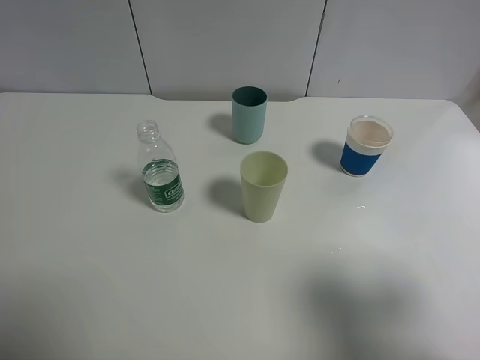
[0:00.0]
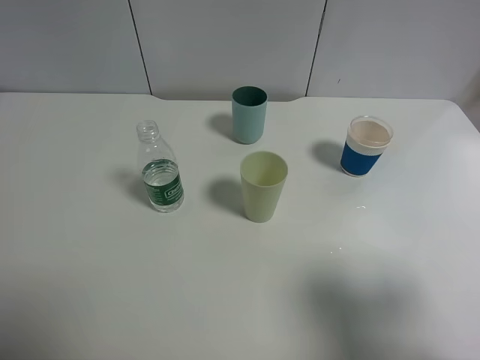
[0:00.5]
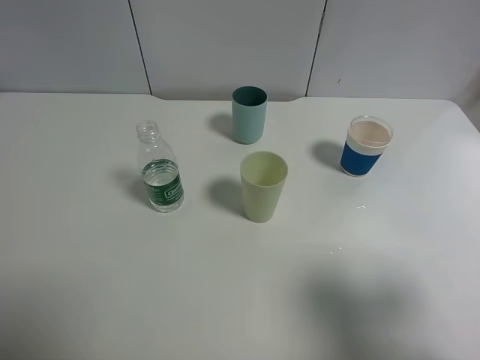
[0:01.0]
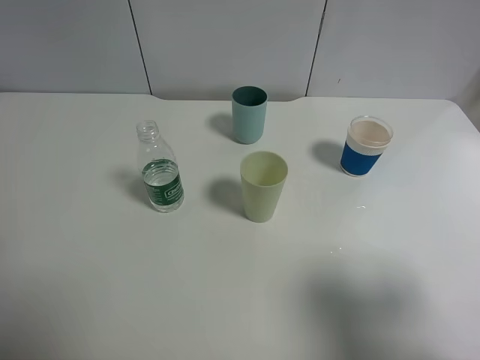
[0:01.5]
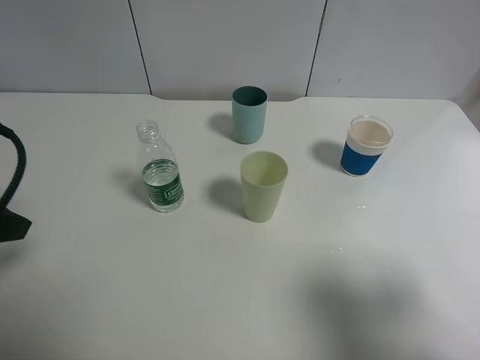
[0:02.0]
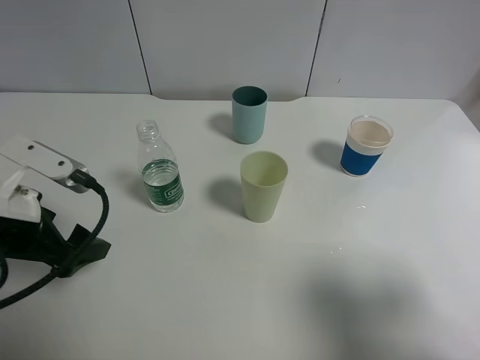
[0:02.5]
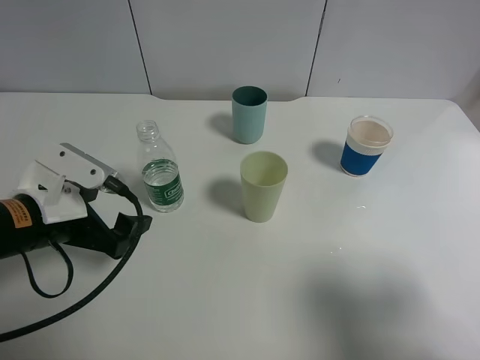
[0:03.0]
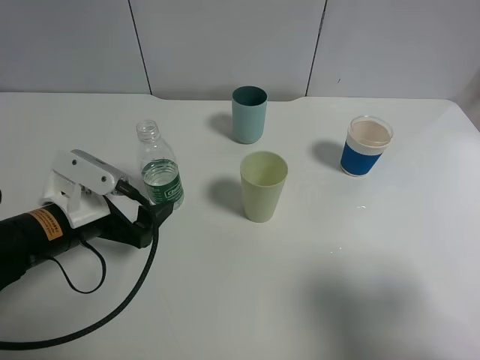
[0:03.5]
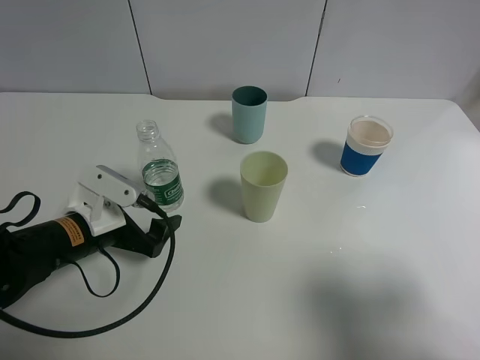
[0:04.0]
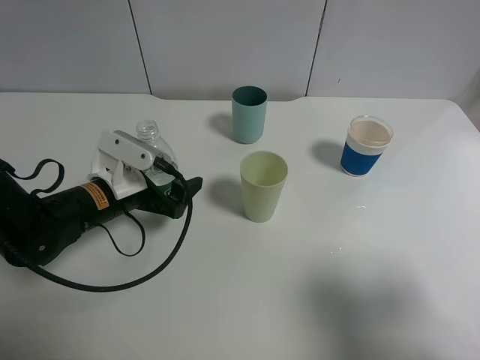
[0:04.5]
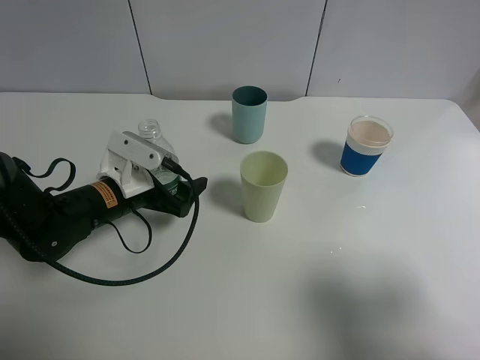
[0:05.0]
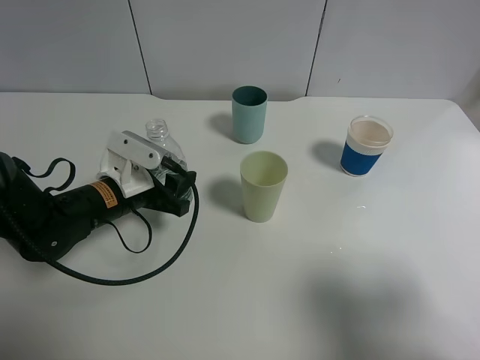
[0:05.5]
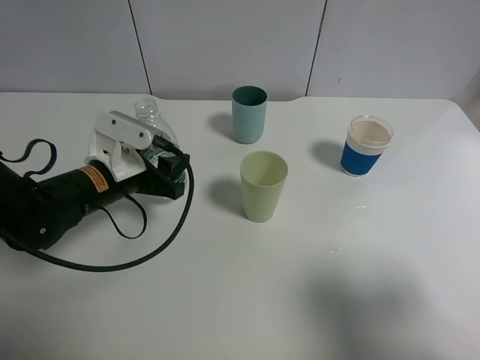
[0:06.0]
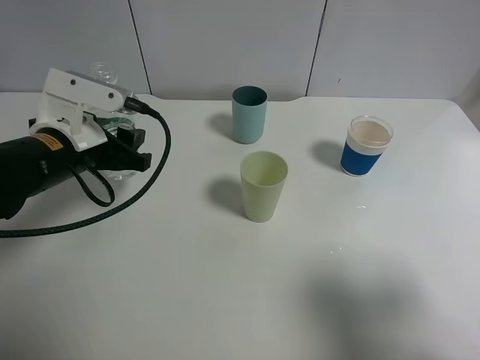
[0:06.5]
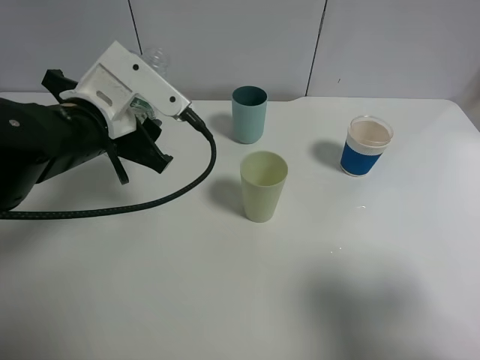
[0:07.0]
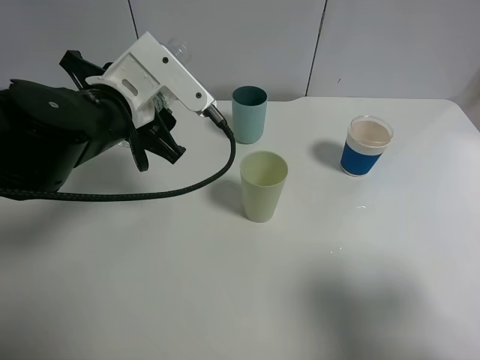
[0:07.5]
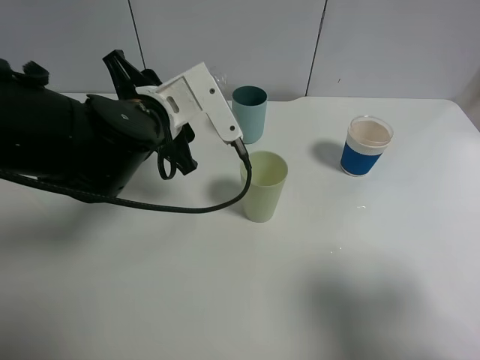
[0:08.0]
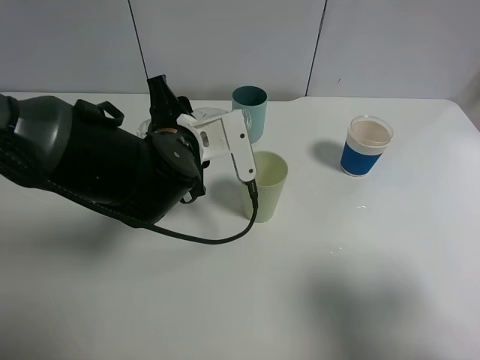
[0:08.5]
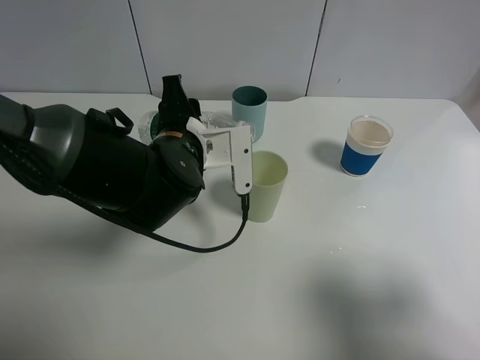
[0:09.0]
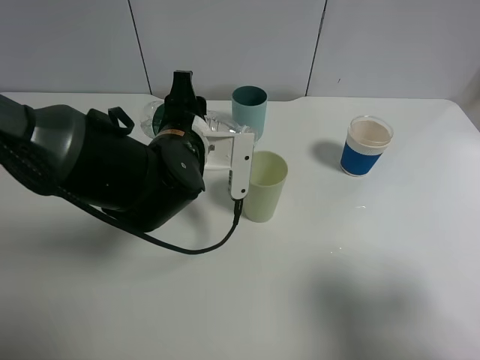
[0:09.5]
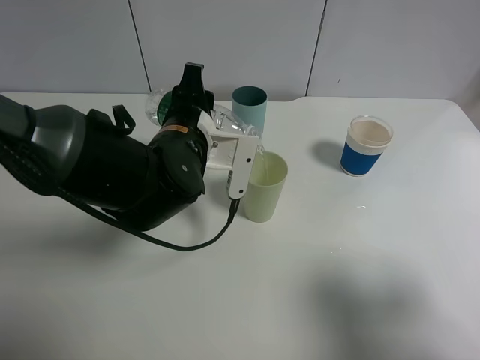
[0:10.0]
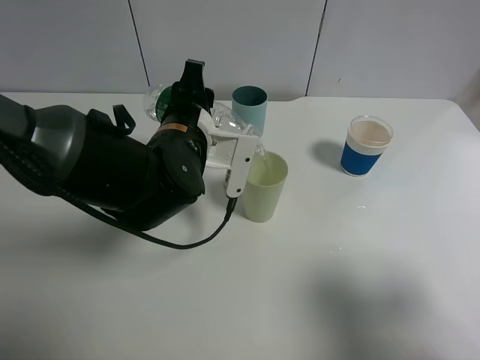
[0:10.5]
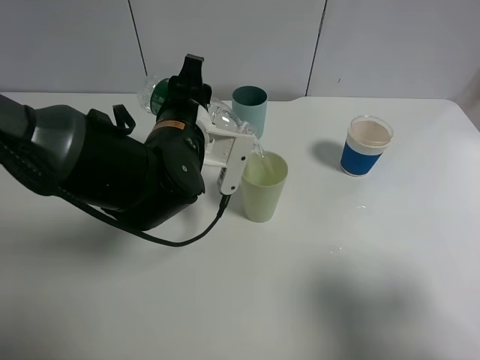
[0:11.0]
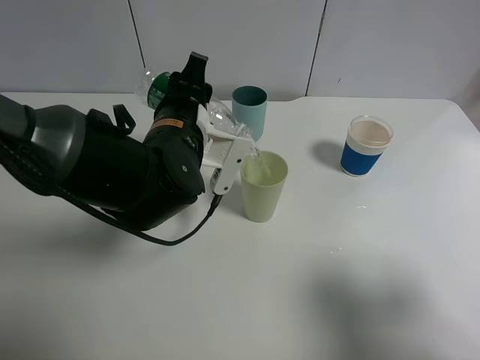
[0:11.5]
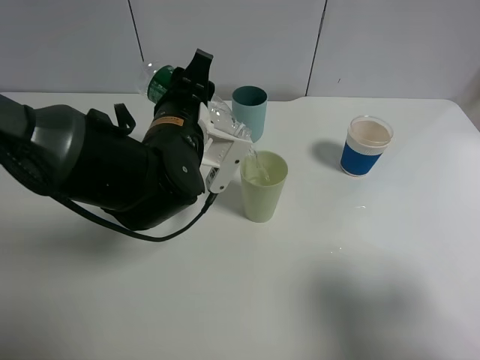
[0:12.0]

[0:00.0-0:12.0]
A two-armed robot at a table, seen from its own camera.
Task of the whole recording: use a clamp to hold the bottle of the drink, pour the beverage into a random cup, then clamp the cup containing the drink and pour the drink into another random cup.
Step, 0:00.0 to 0:06.0: Pick up the water bottle with left gripper.
0:00.0 to 0:02.0: The left gripper is displaced forward by some 15 cm.
0:02.0 to 0:04.0: The left gripper is displaced downward and to the right by some 20 cm.
0:04.0 to 0:06.0: The left gripper moves forward, approximately 5 cm, and closes.
0:06.0 to 0:08.0: The left gripper moves upward and to the right, approximately 10 cm.
0:08.0 to 0:10.0: The left gripper changes place by some 5 cm.
0:10.0 to 0:12.0: There are only small adjustments of the grippers.

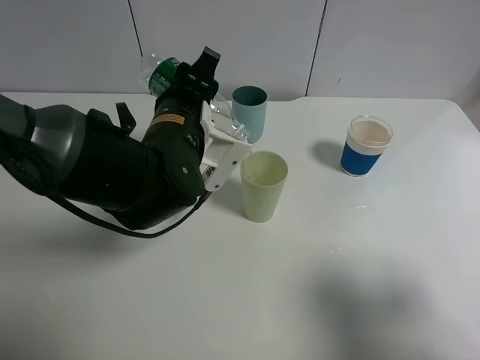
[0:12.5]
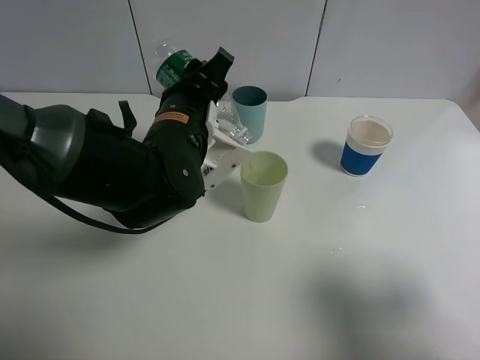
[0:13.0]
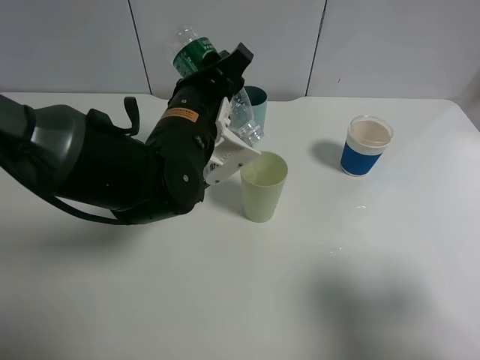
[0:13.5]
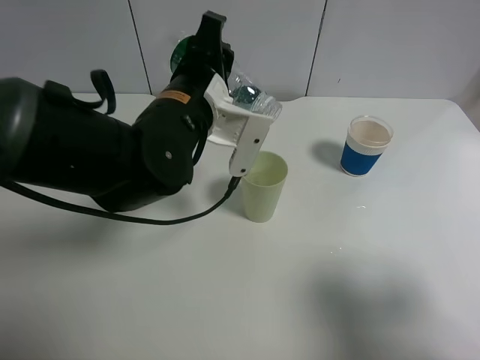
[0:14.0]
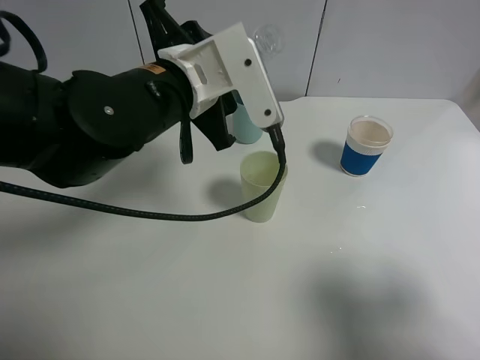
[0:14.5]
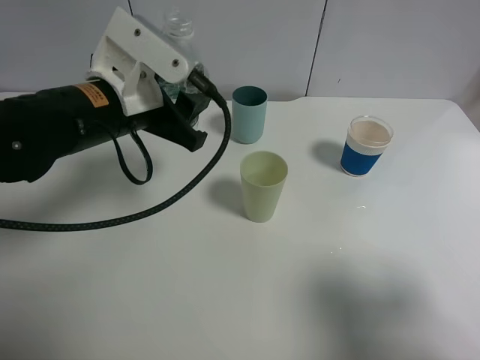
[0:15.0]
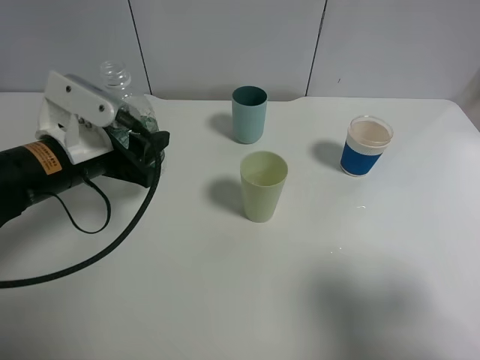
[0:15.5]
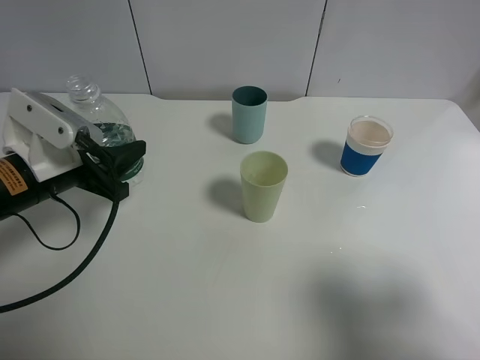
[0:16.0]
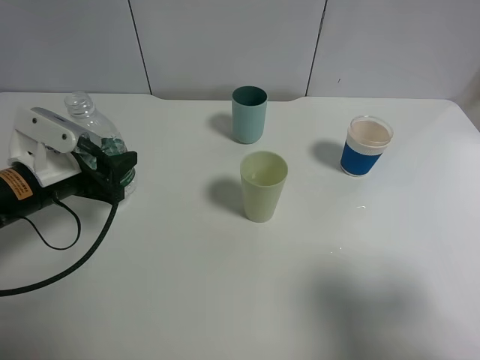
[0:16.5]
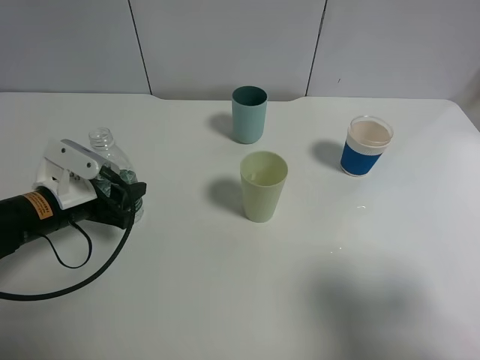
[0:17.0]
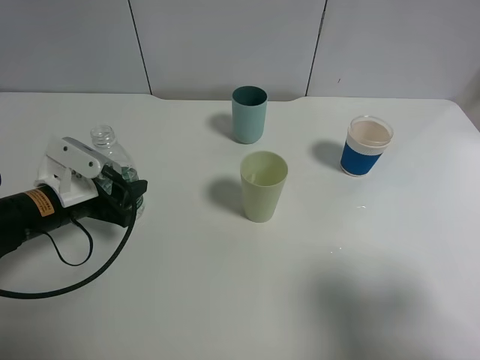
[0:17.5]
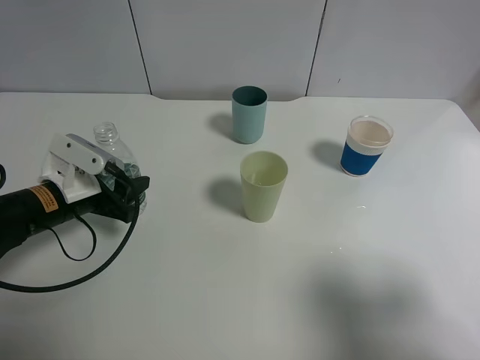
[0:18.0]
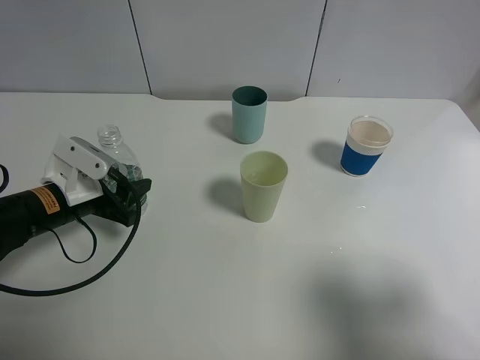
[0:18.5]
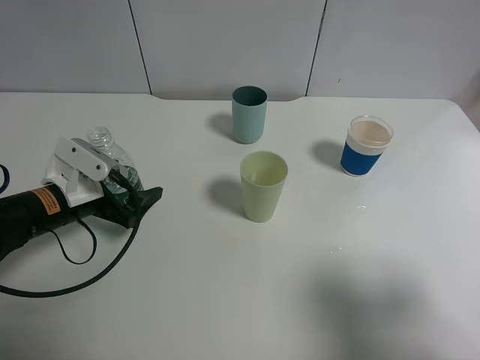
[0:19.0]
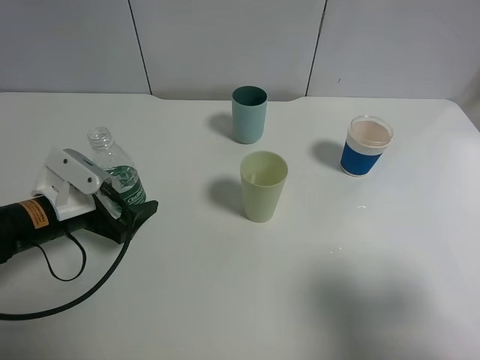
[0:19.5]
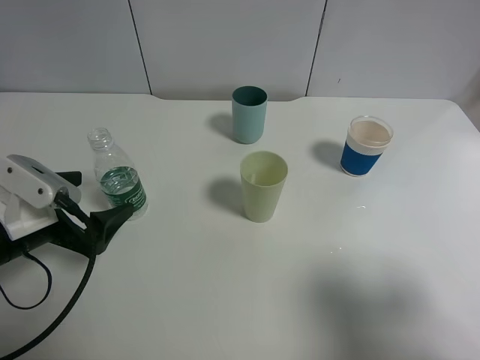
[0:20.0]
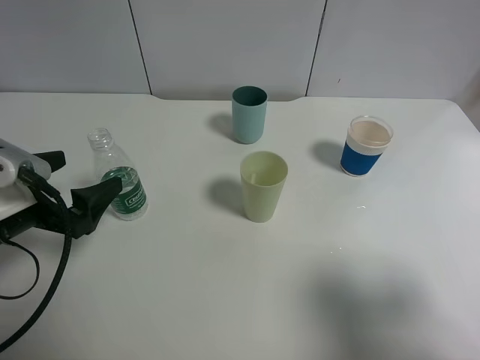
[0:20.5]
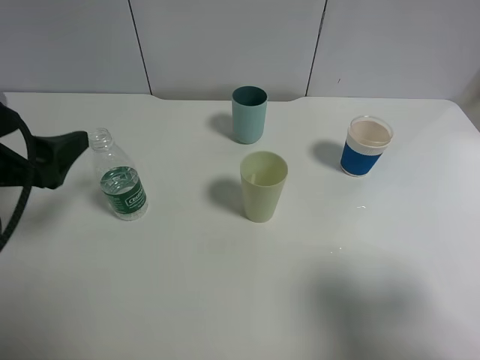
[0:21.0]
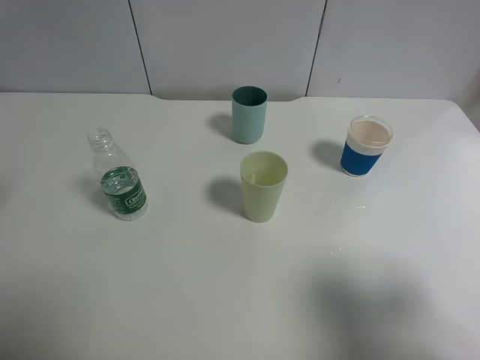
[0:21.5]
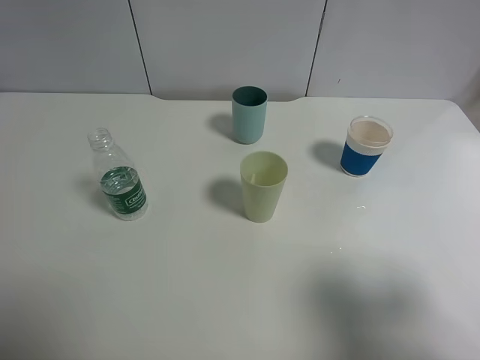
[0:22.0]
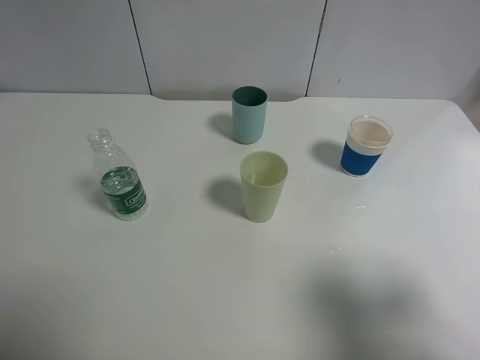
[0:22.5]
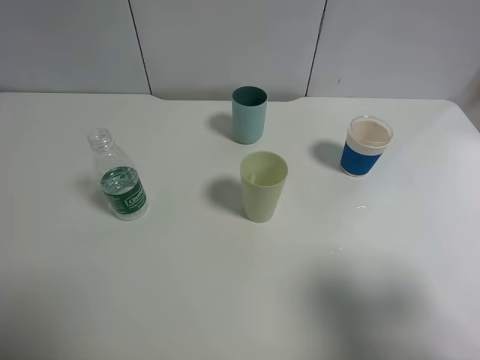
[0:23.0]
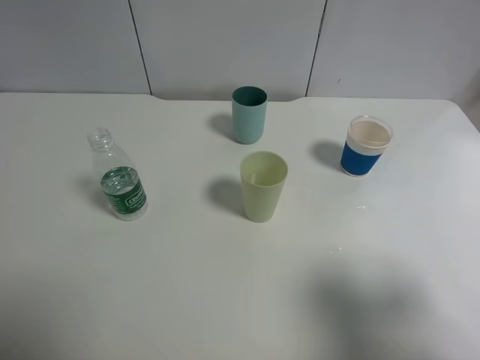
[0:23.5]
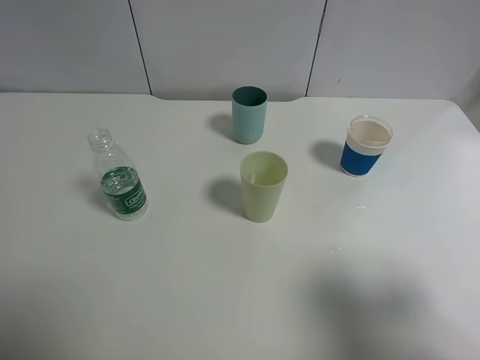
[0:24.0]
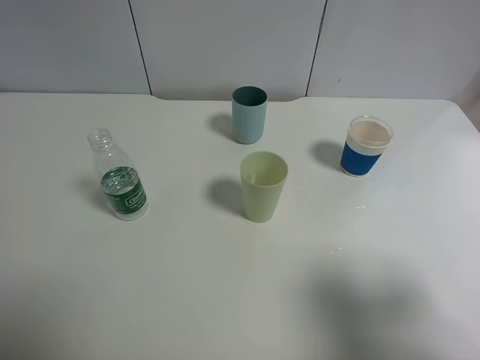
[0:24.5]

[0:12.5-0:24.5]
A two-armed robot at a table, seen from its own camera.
Task of the whole recording: use a clamp to hold the bottle of the drink, pour the beverage into a random cup, then clamp the cup containing the drink and pour the drink into another random cup.
Step, 0:14.5 to 0:19.0: Place the water bottle on the table with left gripper.
0:12.5 to 0:14.5: The left gripper shifts some 5 cm upward.
0:14.5 to 0:16.5: The left gripper heads to the left and downward, covering some 20 cm.
0:16.5 to 0:18.5: The left gripper moves downward, roughly 5 cm.
0:18.5 to 0:20.5: The left gripper is displaced backward and upward by approximately 10 cm, and opens up.
0:20.5 to 0:22.5: The left gripper is displaced upward, backward and to the left by about 25 cm.

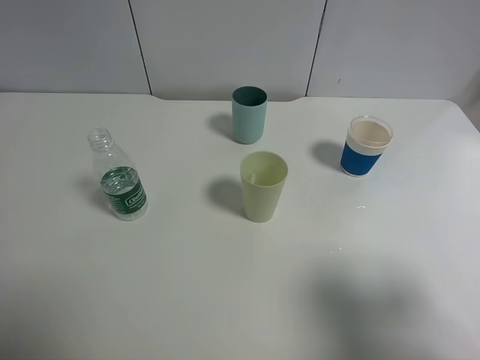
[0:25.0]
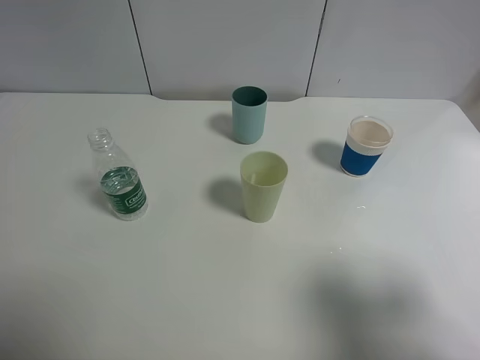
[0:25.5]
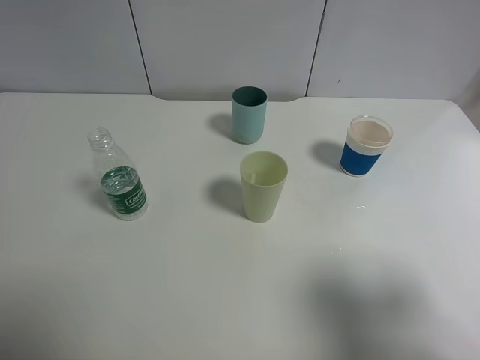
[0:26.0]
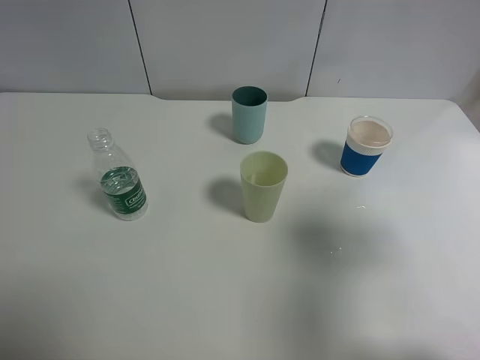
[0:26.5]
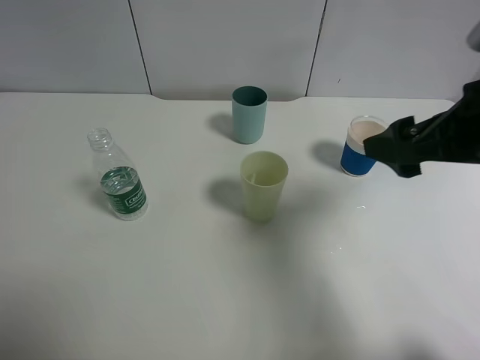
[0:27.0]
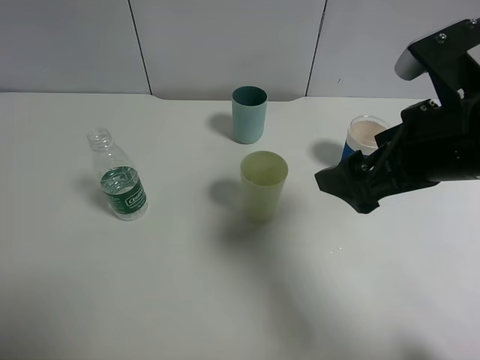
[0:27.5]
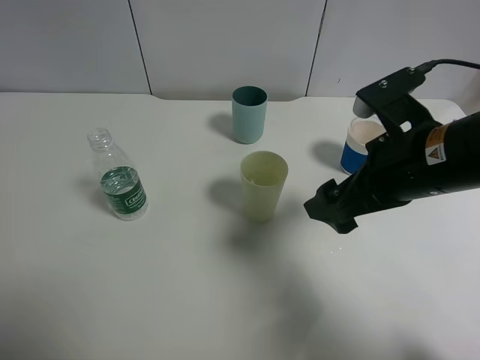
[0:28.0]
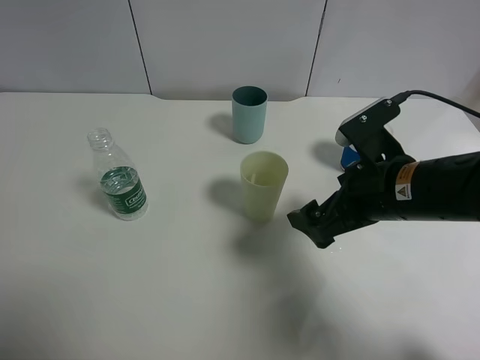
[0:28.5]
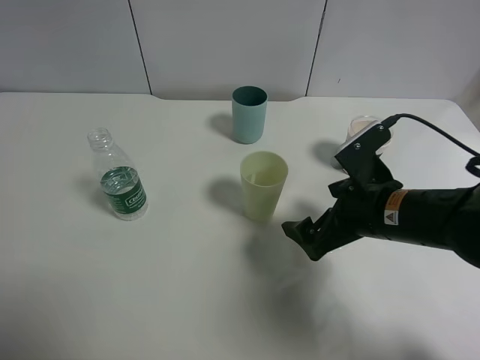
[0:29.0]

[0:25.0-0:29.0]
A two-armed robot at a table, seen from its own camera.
Task of the whole recording: use a clamp to hold the bottle of the drink, pour the beverage into a random cup, then clamp the cup containing the drink and pour the drink into another random cup.
0:25.0 to 0:27.0: The right gripper shifts some 15 cm forward.
0:27.0 to 0:29.0: The right gripper goes approximately 15 cm downward and to the left.
